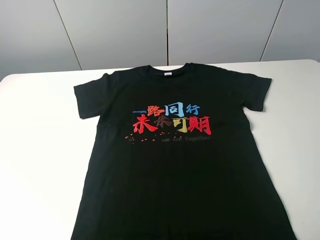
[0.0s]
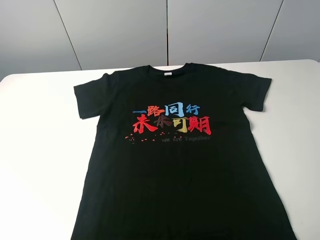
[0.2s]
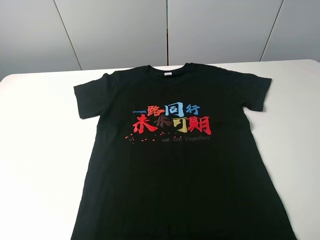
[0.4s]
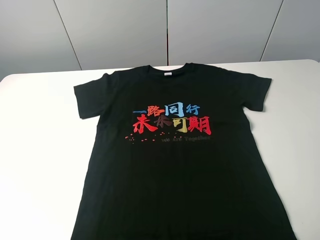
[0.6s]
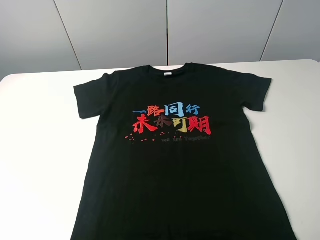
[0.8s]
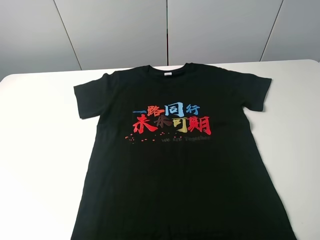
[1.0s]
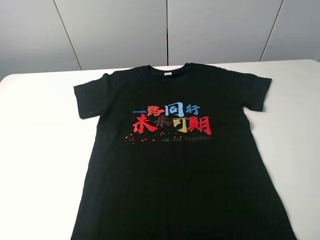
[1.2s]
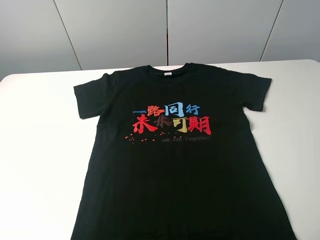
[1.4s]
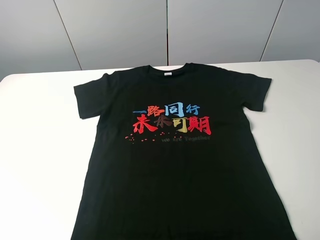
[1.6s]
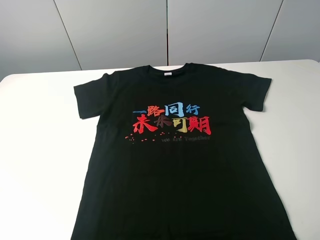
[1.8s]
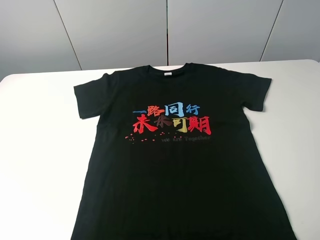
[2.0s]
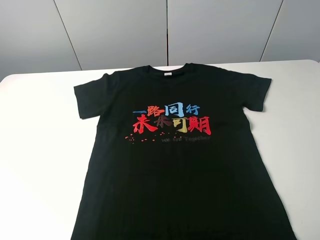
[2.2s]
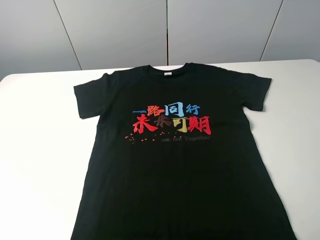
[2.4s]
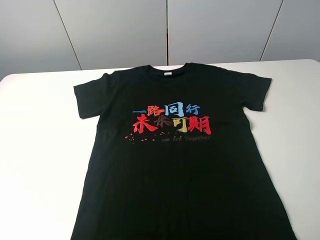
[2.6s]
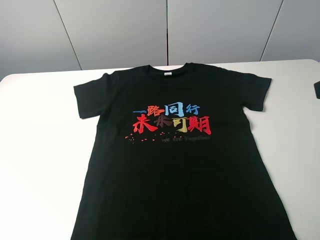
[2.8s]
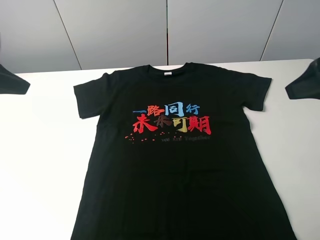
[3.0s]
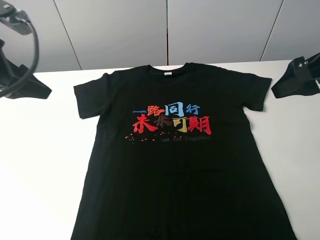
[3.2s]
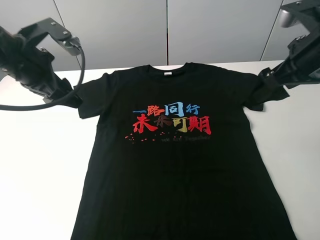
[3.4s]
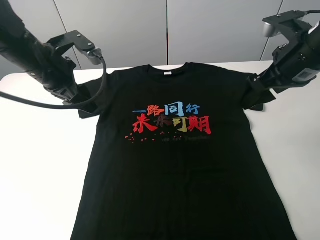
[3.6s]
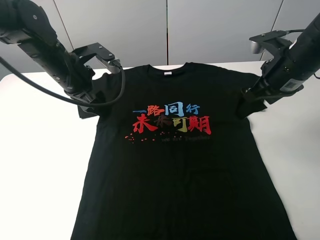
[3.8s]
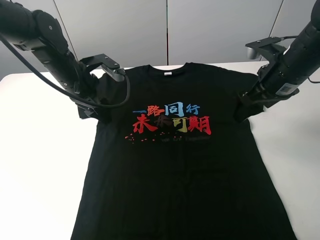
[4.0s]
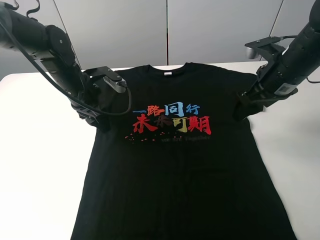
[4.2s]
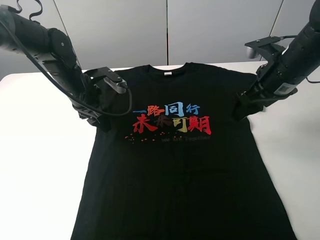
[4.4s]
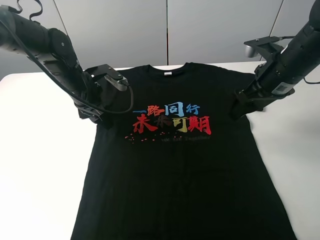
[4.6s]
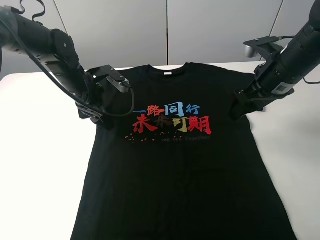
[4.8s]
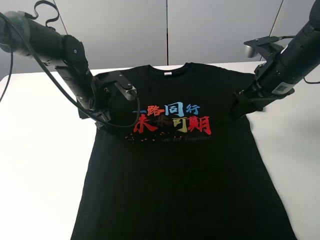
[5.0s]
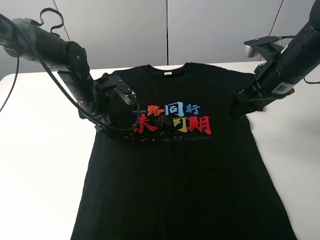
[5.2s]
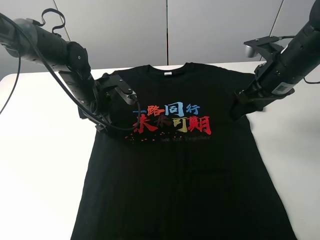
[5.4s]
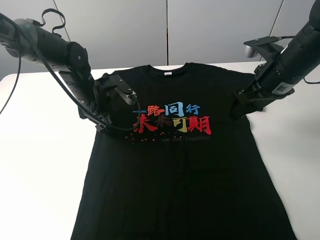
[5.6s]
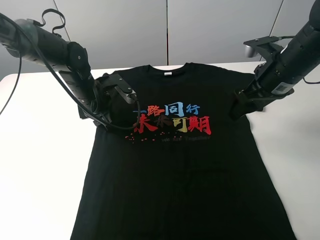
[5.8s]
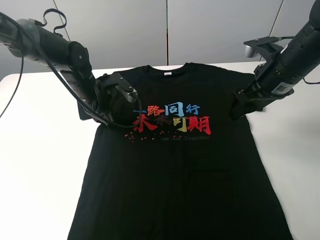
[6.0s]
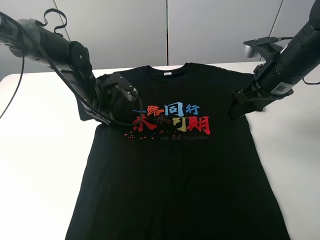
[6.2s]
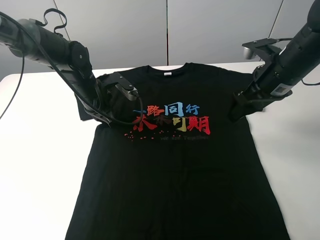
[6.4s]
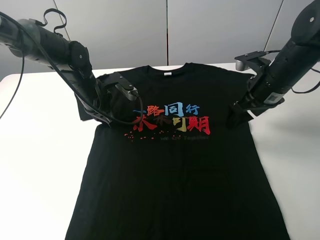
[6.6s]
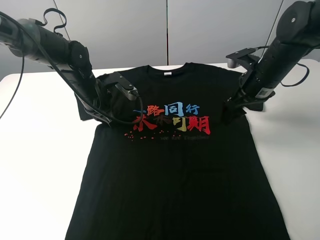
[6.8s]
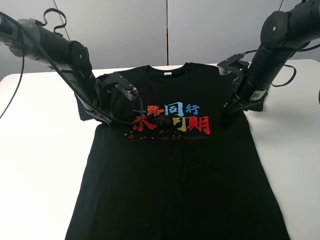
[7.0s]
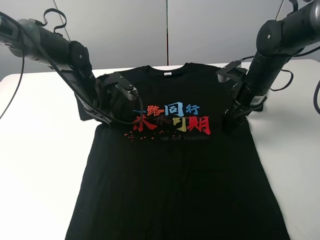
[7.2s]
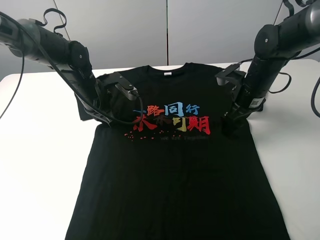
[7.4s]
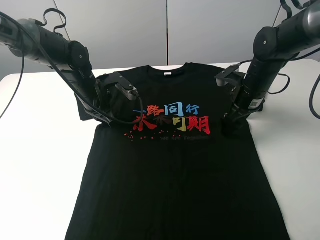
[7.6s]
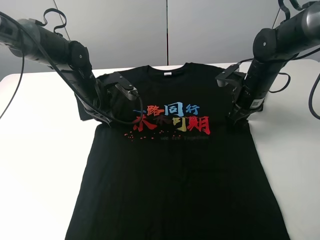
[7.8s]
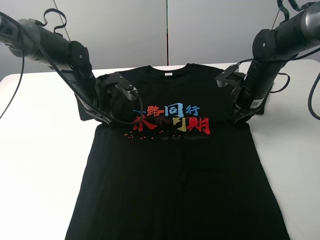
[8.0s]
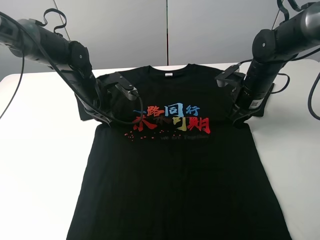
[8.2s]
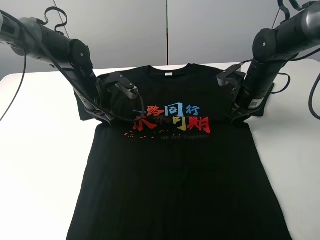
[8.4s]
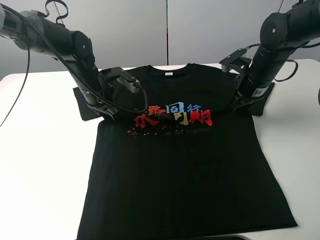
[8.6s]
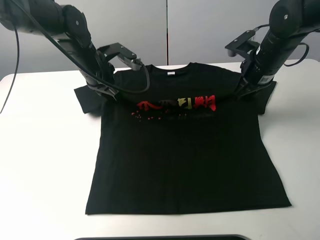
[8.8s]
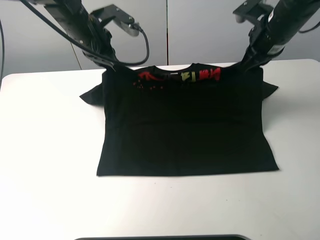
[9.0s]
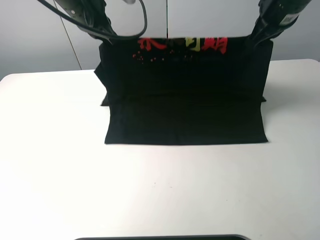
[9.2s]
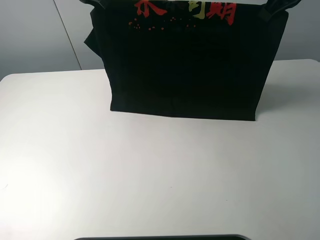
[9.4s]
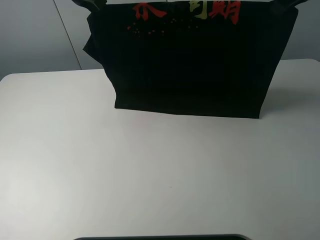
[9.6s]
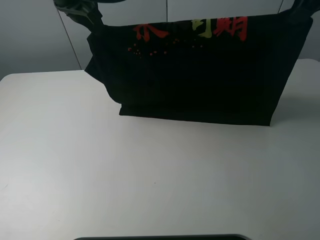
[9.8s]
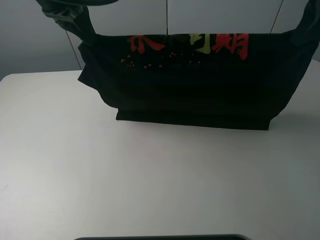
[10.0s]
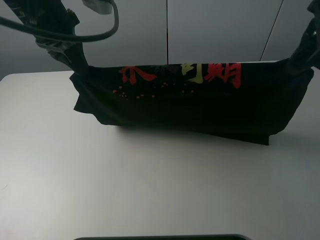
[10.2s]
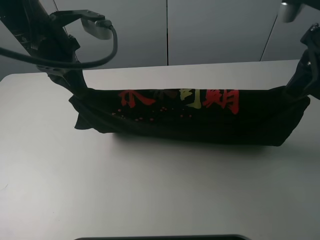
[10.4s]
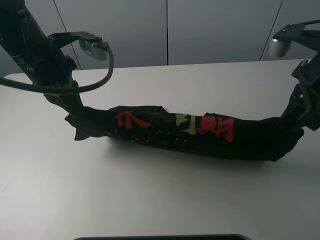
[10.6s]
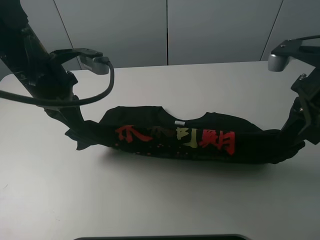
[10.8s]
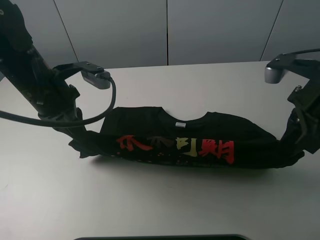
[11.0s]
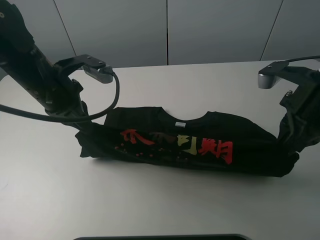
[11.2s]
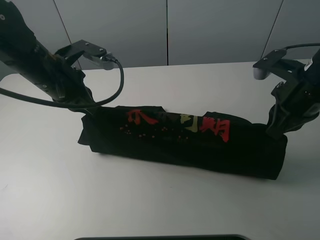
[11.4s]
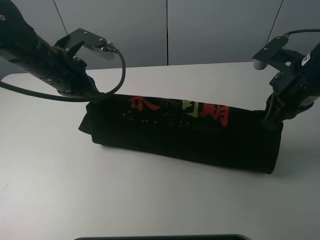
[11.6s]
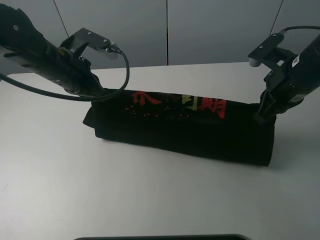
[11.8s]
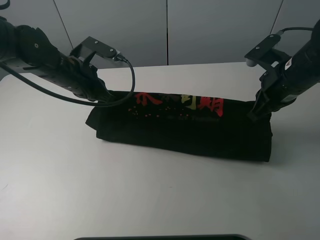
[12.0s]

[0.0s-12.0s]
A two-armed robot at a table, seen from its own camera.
Task of the whole recording: fold the clothes on the table.
Step, 0.0s to 7.8s: Lift the black T-shirt with the left gripper.
0.0s to 1.6s: The two grippers keep their place.
1.6s to 3.0s: Both grippers travel together forward, roughly 20 cm.
3.0s to 4.4s: The left gripper heads downward, forward and to the right, covering some 25 cm; the right gripper goes roughly 15 cm forward and downward.
4.4s to 6.0s: The left gripper closes.
6.0s to 7.6s: The right gripper heads downward and forward, covering about 10 cm.
7.6s to 9.0s: The two grippers go approximately 15 cm upward. The right gripper closes its fingers.
9.0s to 10.4s: The grippers both shift backward by about 15 cm.
10.4s to 12.0s: The right gripper shifts some 15 cm downward and forward. Meanwhile the left gripper goes approximately 10 cm downward.

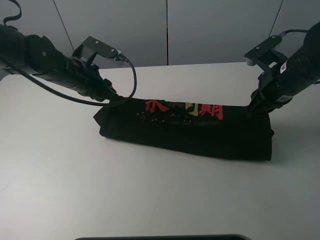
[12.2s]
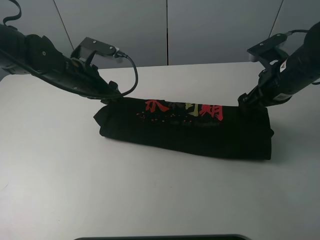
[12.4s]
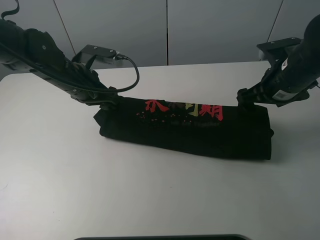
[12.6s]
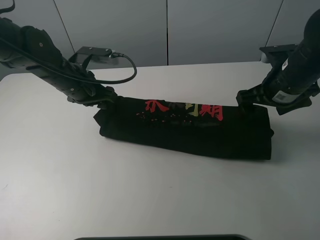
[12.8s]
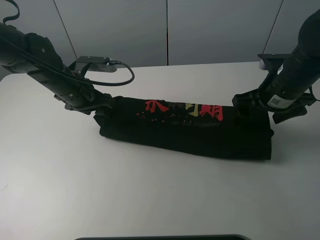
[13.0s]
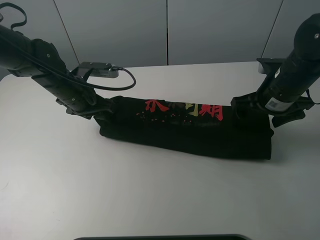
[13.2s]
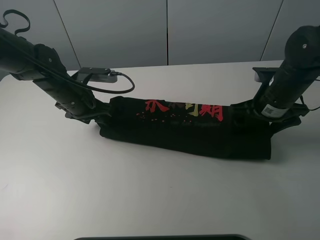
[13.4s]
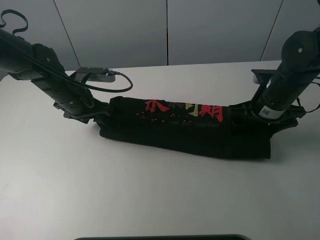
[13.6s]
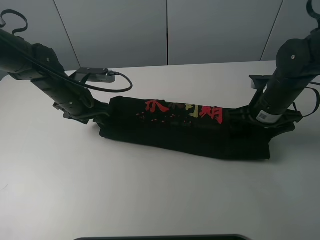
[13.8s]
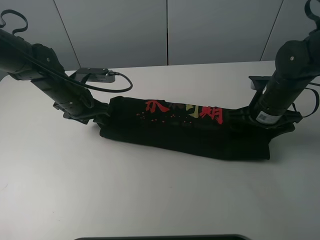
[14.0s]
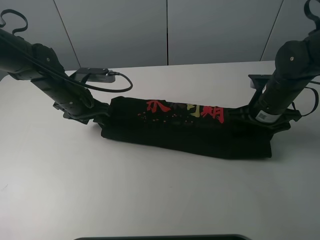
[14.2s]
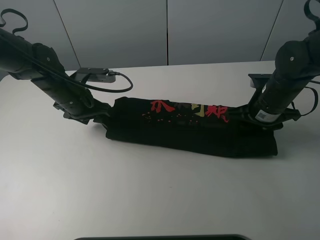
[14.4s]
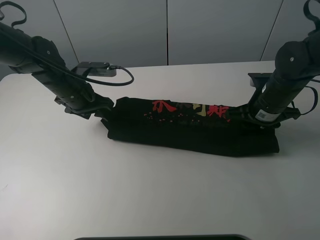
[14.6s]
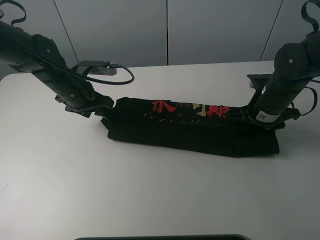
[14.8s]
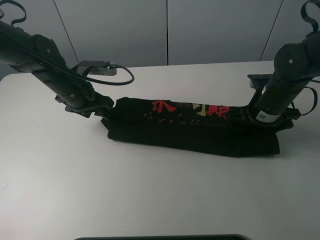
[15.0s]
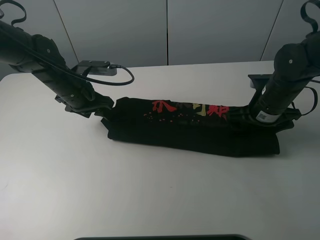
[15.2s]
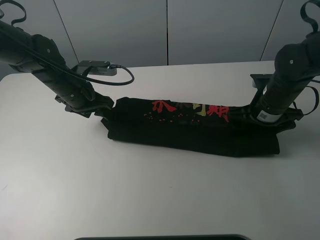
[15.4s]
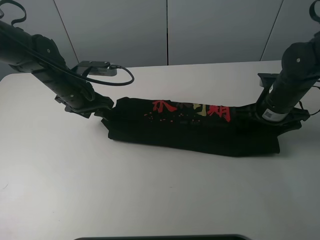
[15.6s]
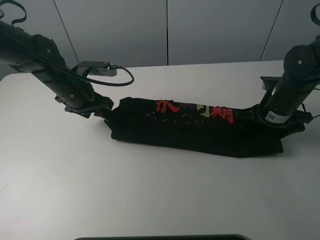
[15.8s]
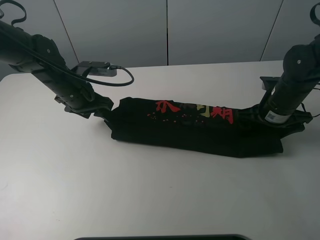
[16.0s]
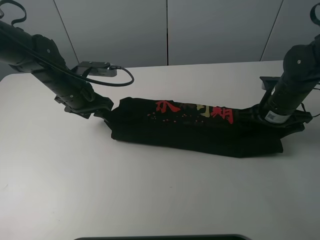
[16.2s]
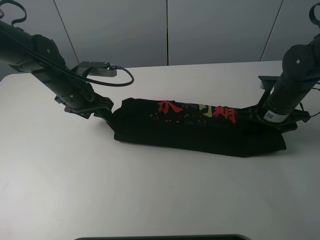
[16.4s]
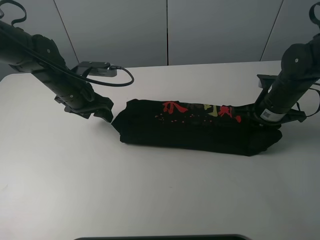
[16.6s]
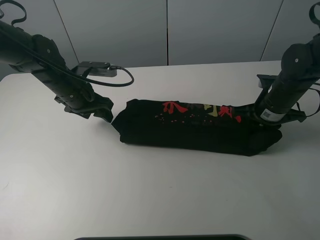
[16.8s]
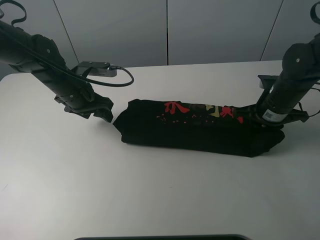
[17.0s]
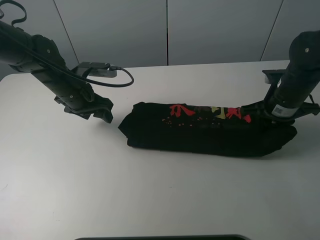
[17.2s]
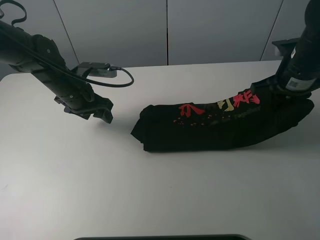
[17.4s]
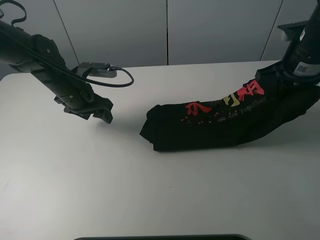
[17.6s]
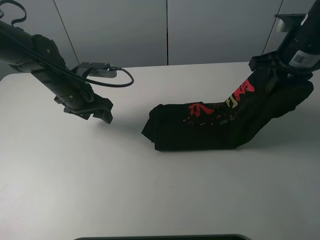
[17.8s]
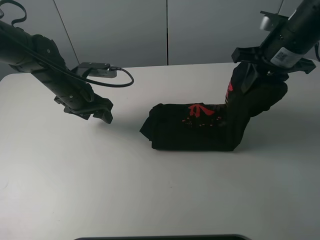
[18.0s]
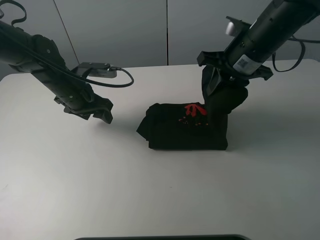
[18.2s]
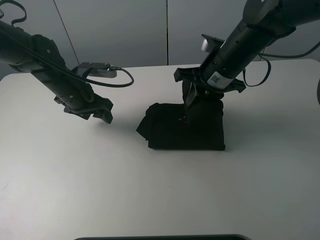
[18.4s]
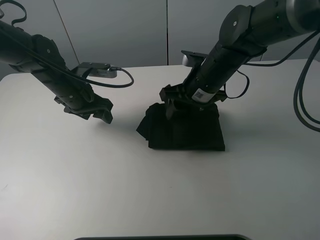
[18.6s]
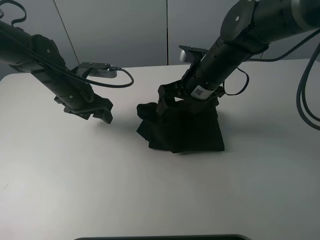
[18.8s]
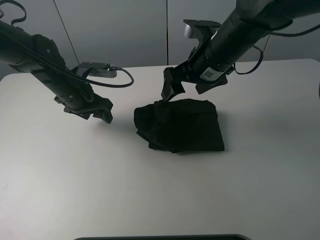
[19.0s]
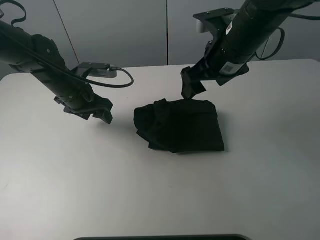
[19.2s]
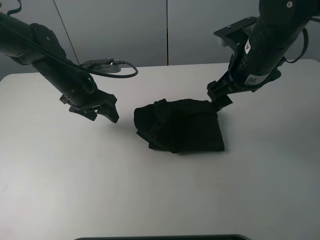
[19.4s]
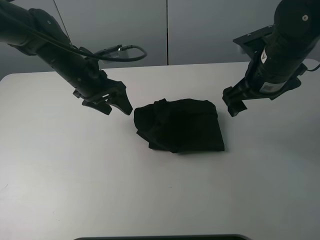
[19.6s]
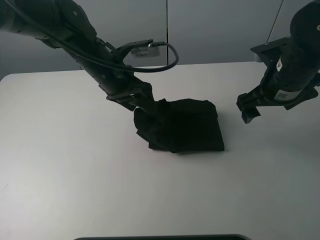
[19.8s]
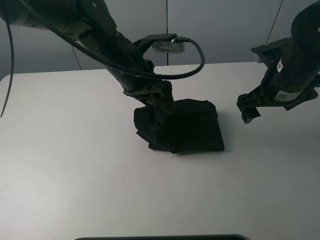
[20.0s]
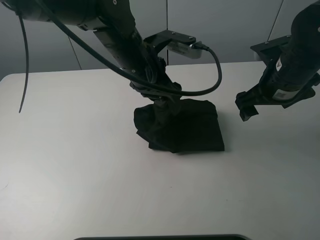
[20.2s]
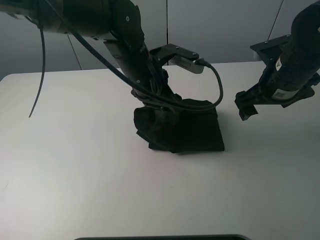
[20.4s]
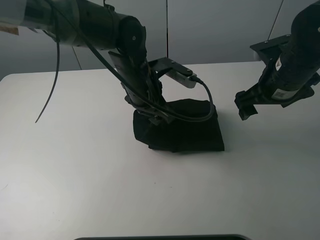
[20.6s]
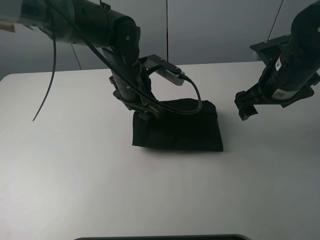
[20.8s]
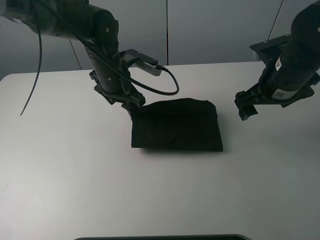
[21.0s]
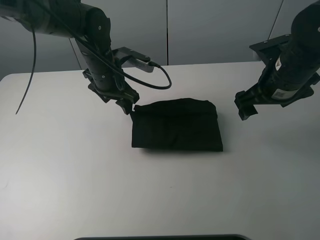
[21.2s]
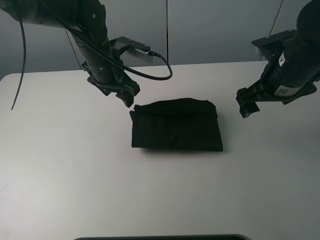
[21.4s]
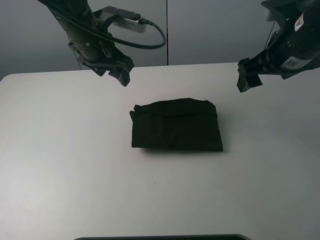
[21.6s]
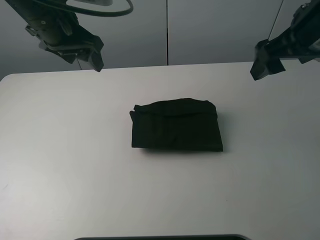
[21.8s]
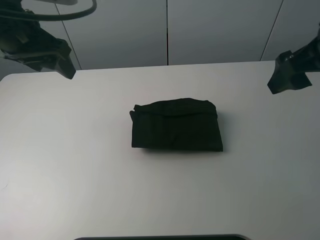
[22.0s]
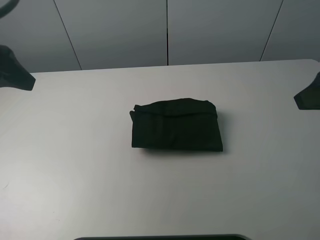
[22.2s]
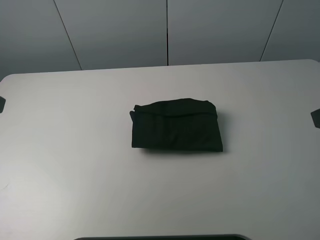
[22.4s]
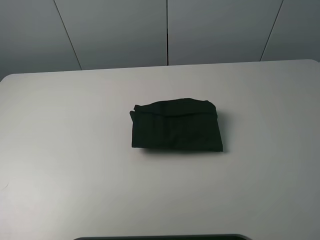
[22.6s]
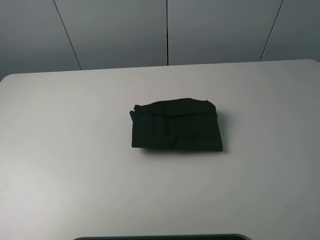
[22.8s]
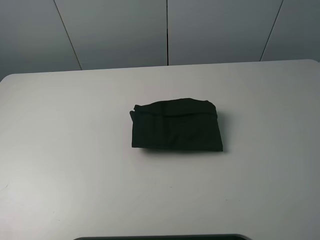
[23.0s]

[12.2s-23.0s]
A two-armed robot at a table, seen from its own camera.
Task of the whole recording: fold the clothes on the table.
Step, 13.2s to 14.4s: Grasp the black T-shirt with the right gripper.
Step, 14.6s to 18.8s: Fold the black T-shirt from right to left with right gripper.
12.2s to 13.8s: The right gripper travels downward by approximately 5 cm, and opens.
13.8s to 15.2s: The right gripper closes and opens again.
15.2s to 16.8s: The right gripper closes its fingers.
16.8s to 18.4s: The right gripper travels to the left and upward by approximately 15 cm.
18.4s to 20.0s: The right gripper travels to the right by roughly 10 cm, and opens. Meanwhile the left gripper shifts roughly 15 cm to the right and upward.
20.0s to 21.4s: The left gripper travels forward and to the left by roughly 5 cm.
21.4s to 23.0s: The right gripper goes roughly 30 cm backward, while the left gripper heads backward and to the left, covering some 40 cm.
